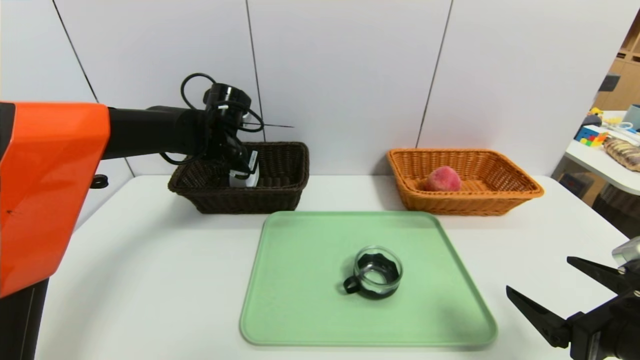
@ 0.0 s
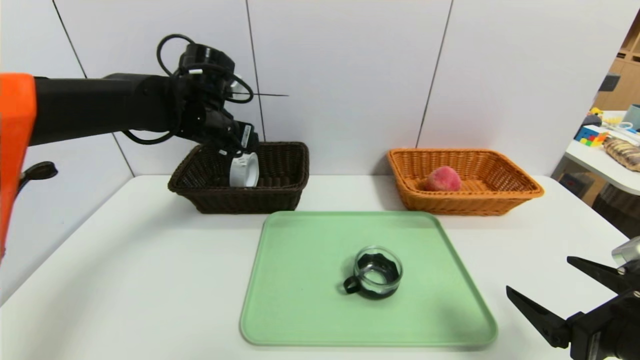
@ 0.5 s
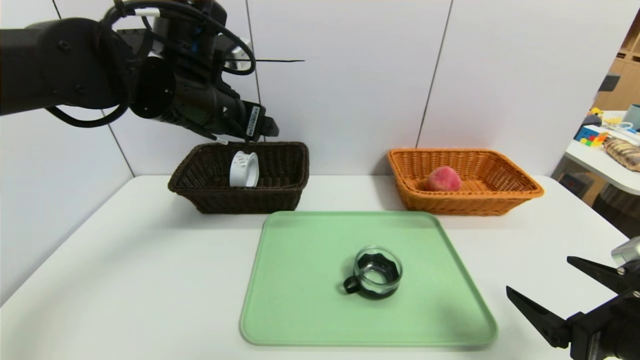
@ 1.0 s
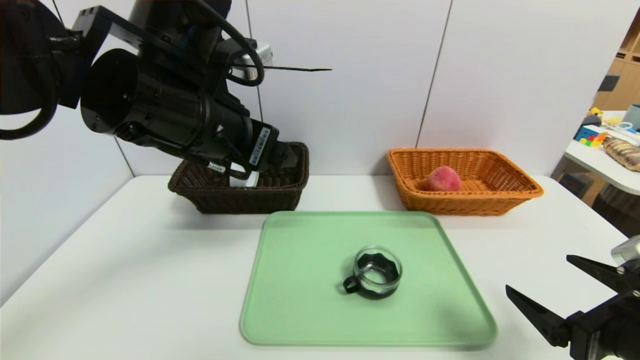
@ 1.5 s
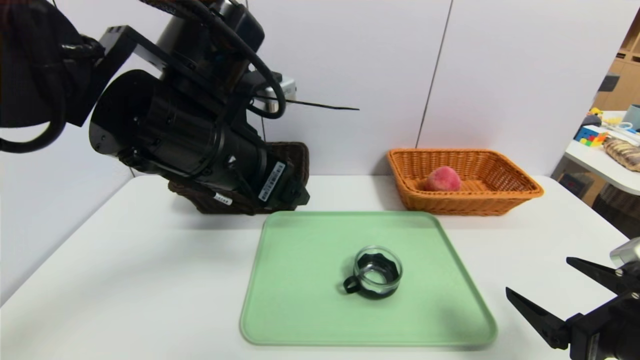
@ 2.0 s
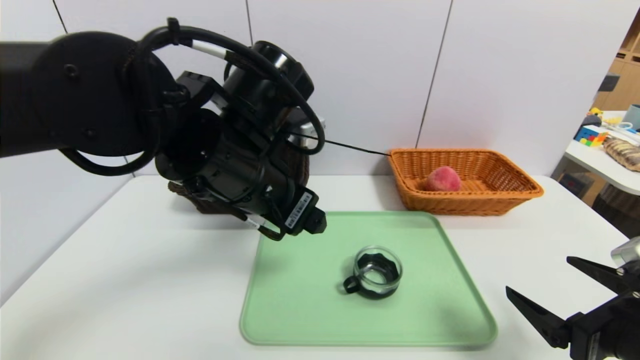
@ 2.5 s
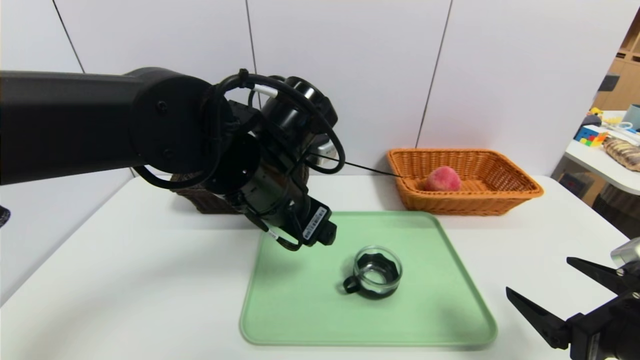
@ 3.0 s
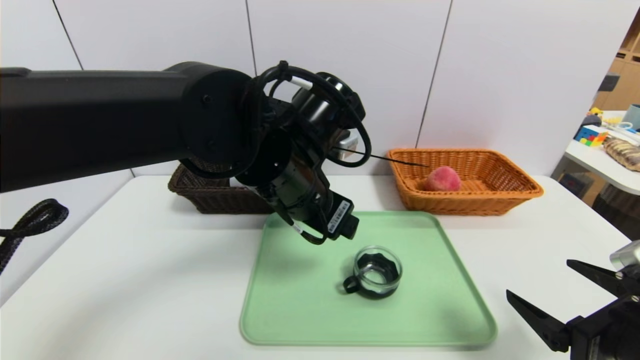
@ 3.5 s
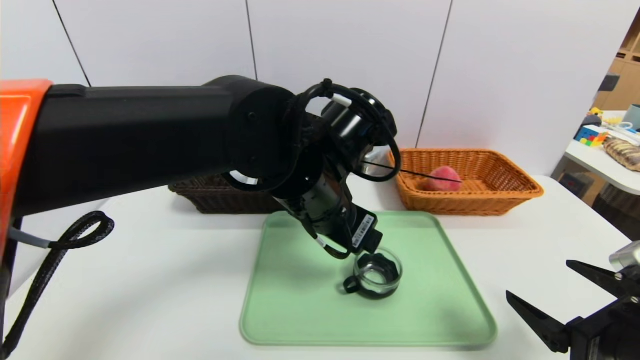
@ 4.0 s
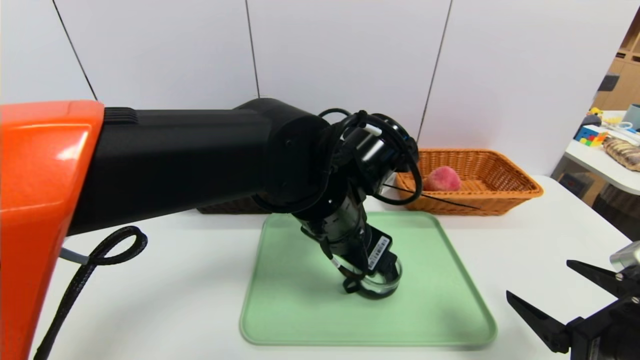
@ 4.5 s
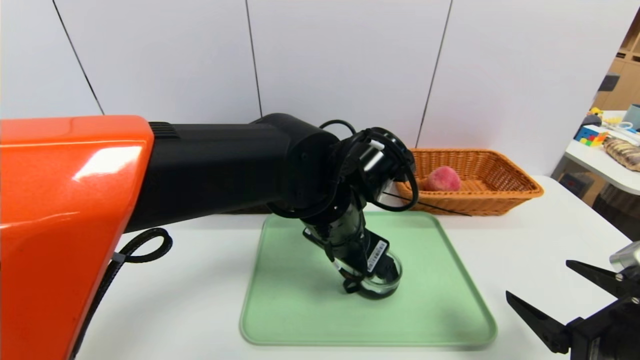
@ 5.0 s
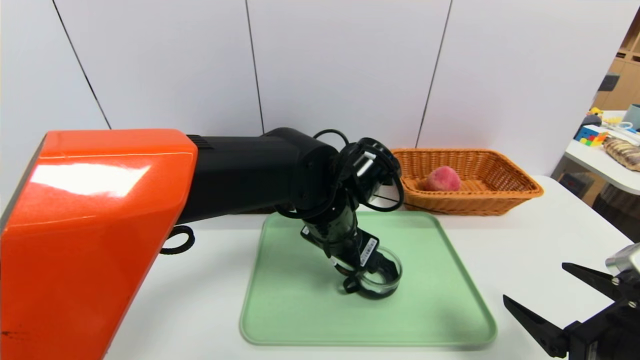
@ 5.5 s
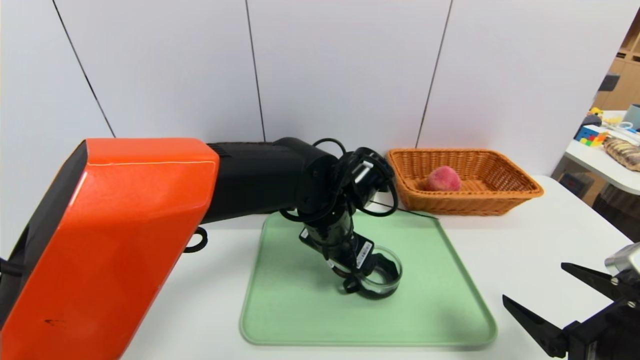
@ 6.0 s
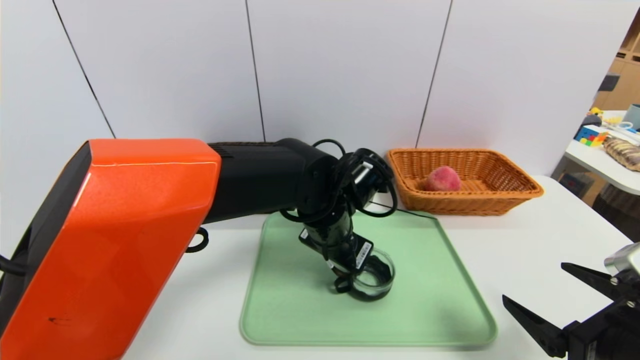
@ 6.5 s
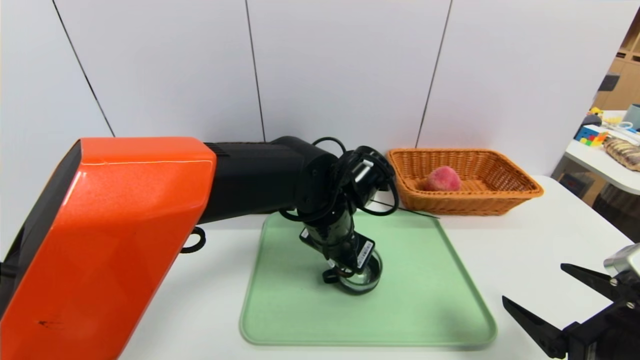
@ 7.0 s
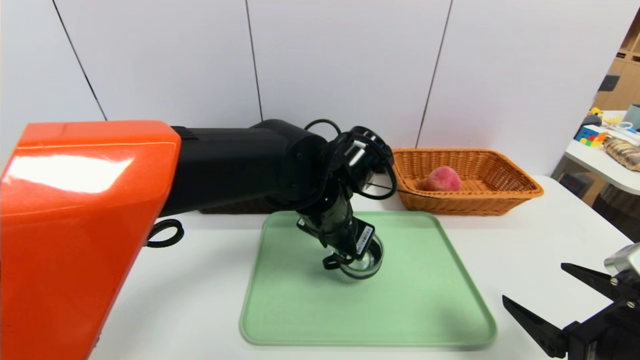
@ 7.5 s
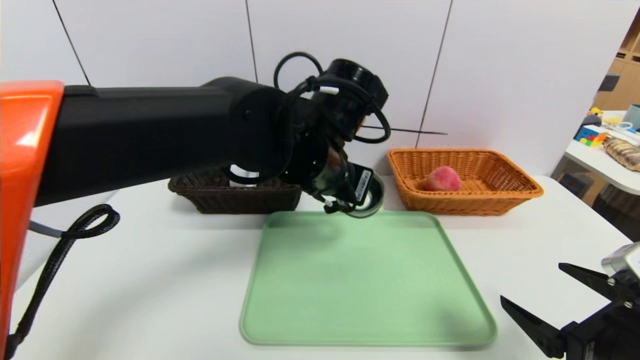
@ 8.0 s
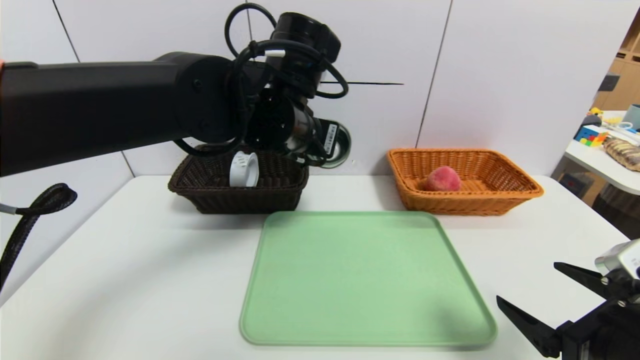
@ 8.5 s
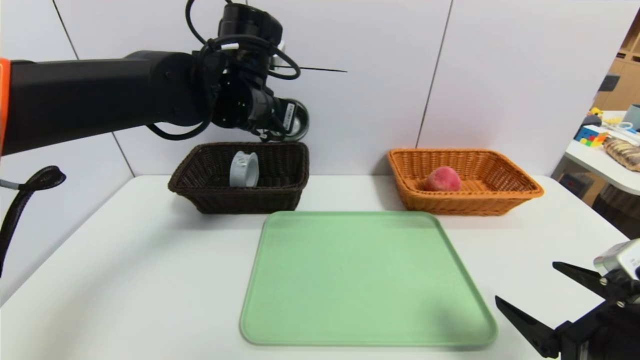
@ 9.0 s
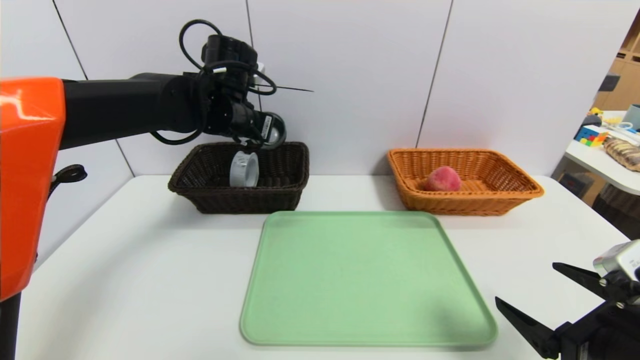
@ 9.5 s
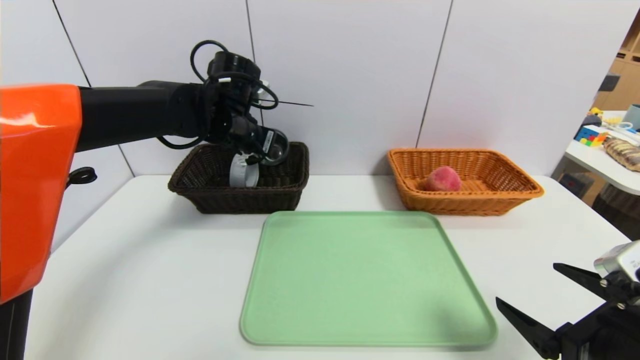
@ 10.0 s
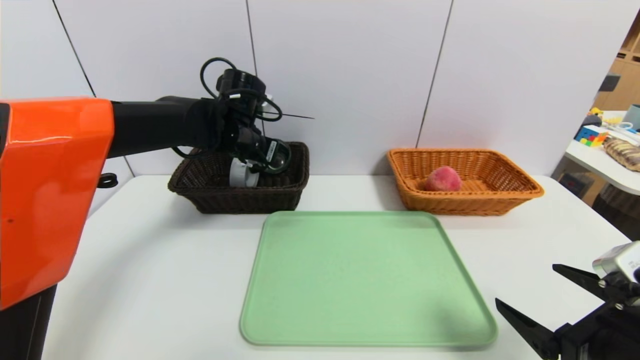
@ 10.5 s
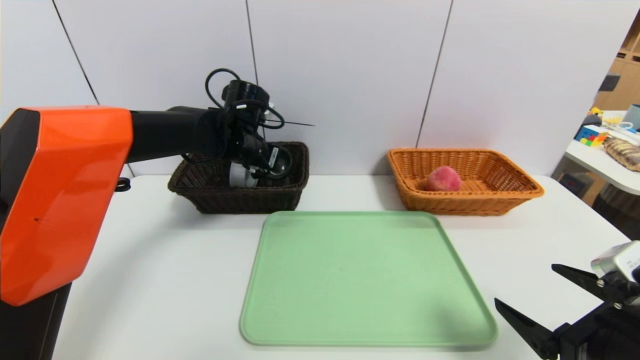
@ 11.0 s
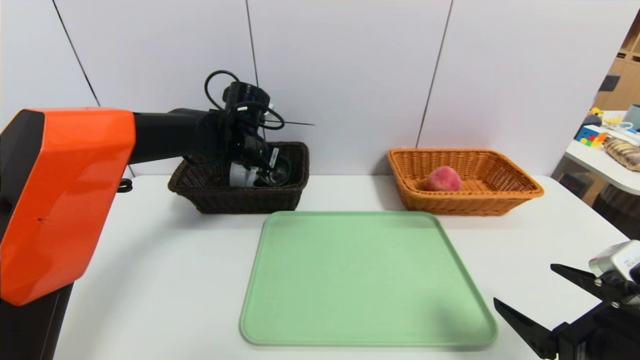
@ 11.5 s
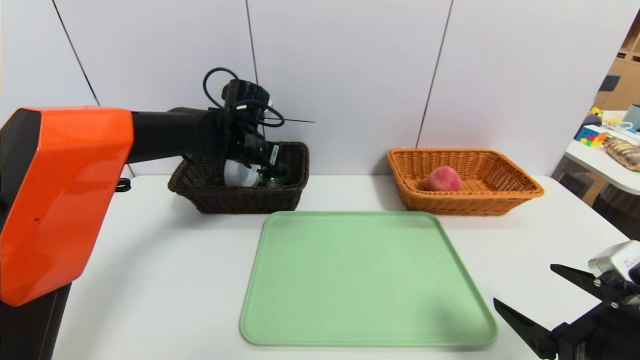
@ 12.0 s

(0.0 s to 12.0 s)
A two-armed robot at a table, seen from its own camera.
Task of the whole recording: place the food in the right basket with the right gripper, and place the non food items in the left basket with the left gripper.
0.0 s - 2.0 s: The left gripper travels backward and upward by about 20 cm.
2.0 s - 4.0 s: The left gripper travels to the right and downward by some 10 cm.
4.0 s - 6.0 s: The left gripper moves downward, some 5 cm.
6.0 s - 8.0 s: The left gripper goes some 10 cm upward, and closes.
8.0 s - 10.0 s: The left gripper is displaced to the left and forward by approximately 20 cm.
10.0 s - 12.0 s: The left gripper opens up.

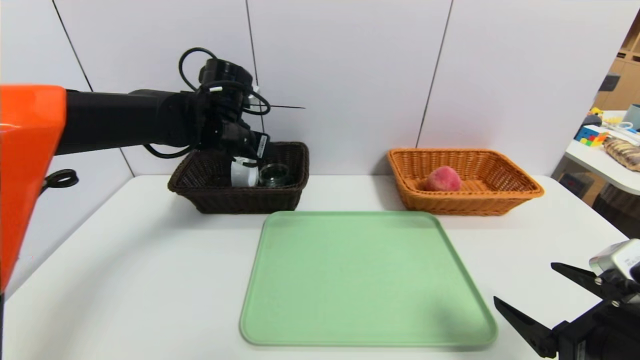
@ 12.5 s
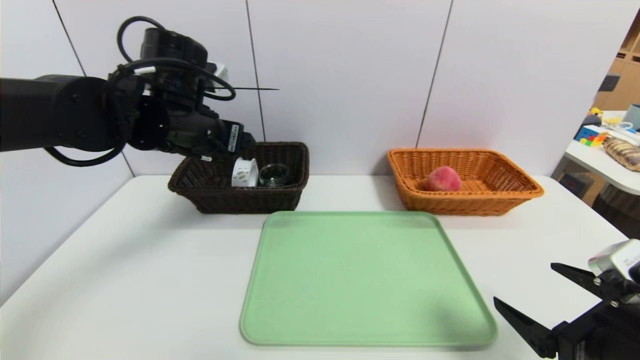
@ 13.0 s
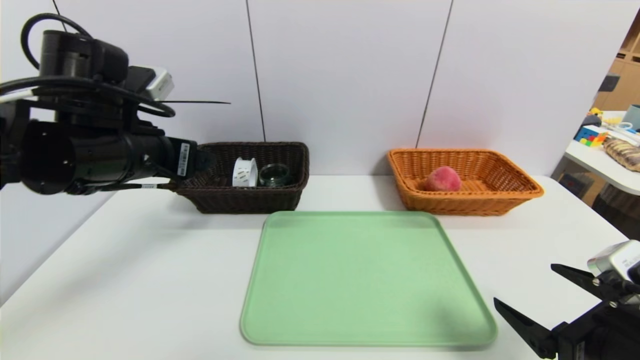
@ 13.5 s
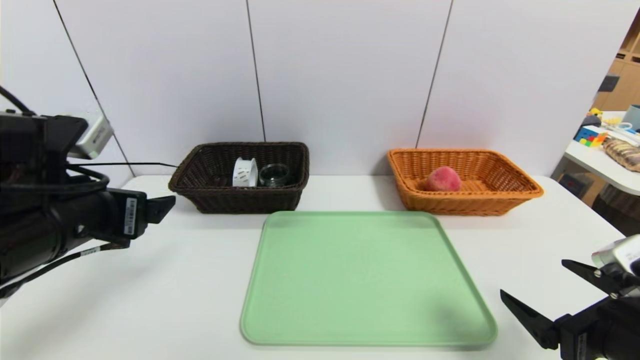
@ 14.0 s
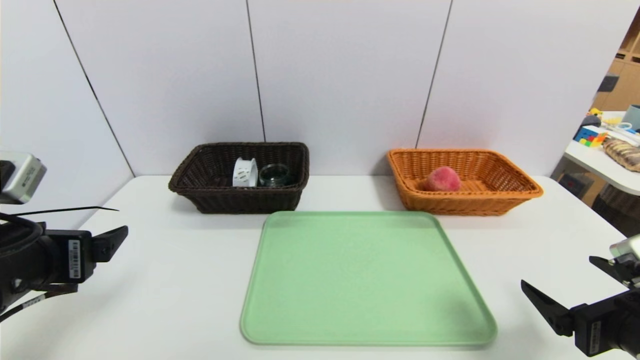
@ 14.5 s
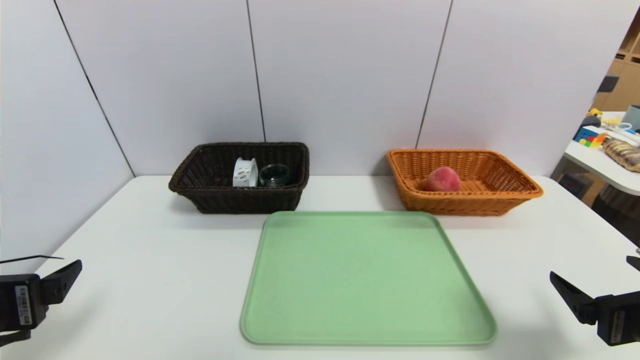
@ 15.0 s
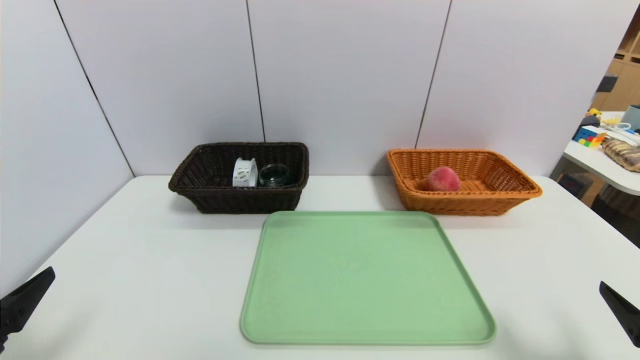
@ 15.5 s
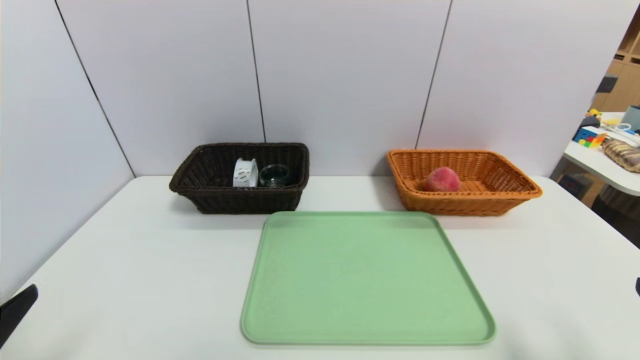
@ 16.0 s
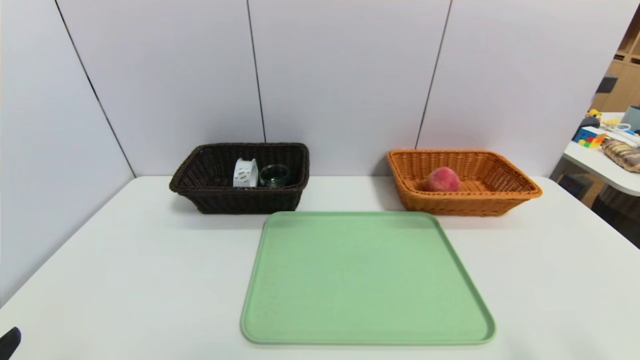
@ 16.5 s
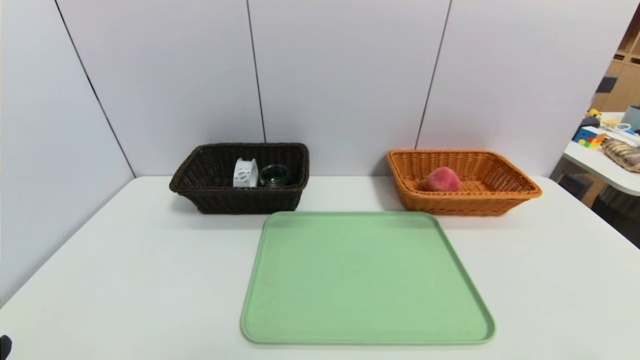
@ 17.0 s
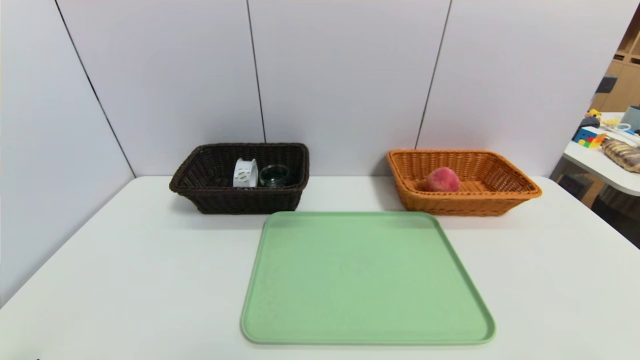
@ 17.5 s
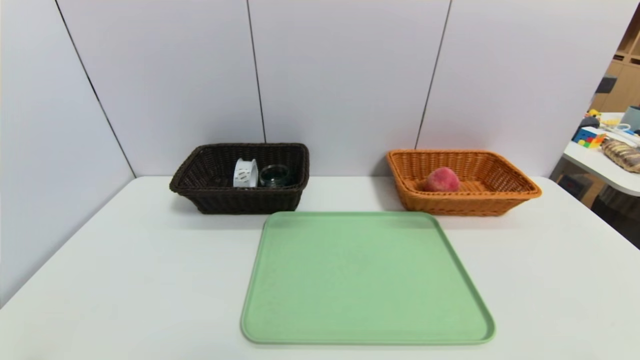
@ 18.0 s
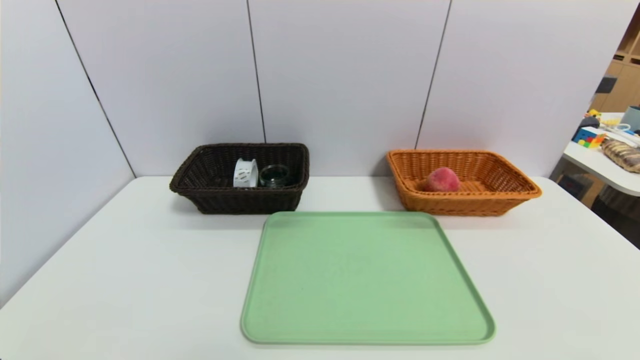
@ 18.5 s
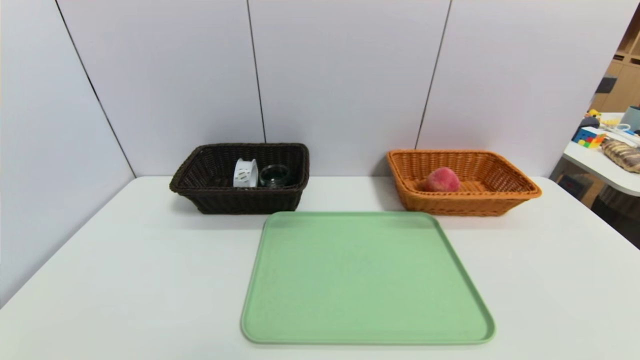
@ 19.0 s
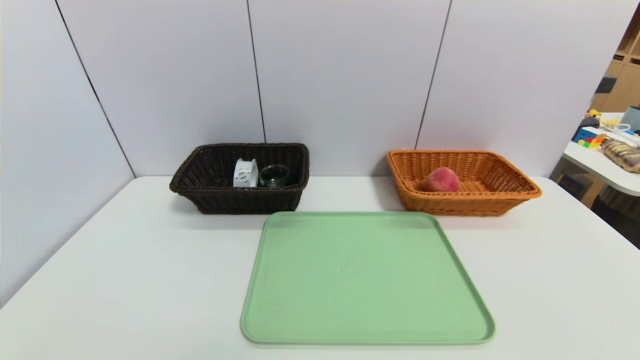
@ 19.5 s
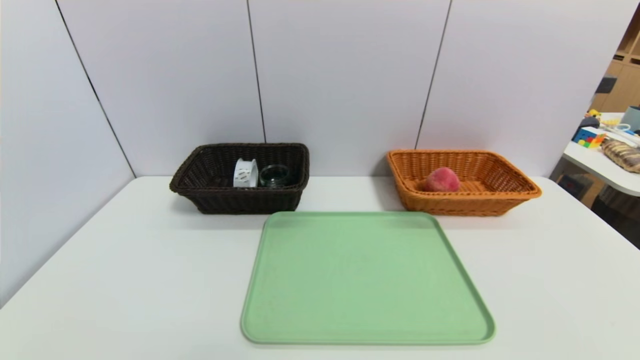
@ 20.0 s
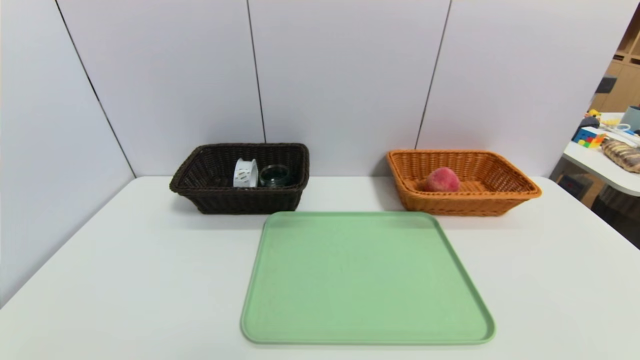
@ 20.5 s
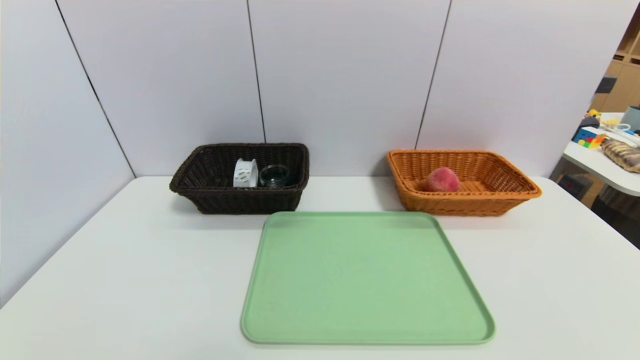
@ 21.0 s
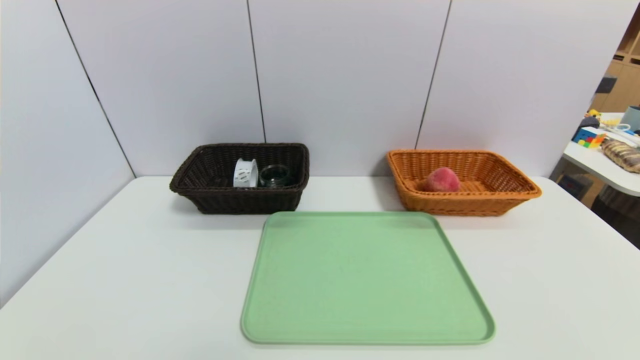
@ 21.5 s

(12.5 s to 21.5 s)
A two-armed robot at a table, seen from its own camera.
Task of the whole recording: place the food in the right basket with the right gripper, and place the non food items in the left basket with the left gripper.
12.5 s - 14.5 s: The left gripper shifts about 30 cm backward and to the left.
14.5 s - 17.0 s: The two grippers go roughly 15 cm backward.
